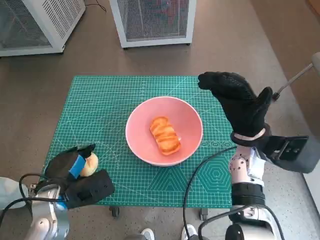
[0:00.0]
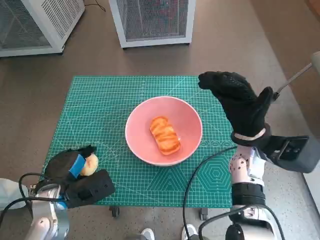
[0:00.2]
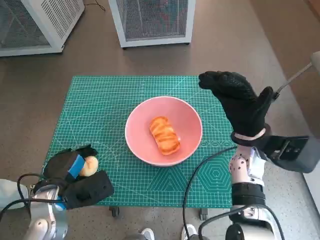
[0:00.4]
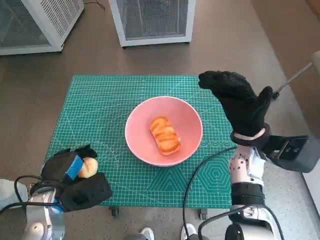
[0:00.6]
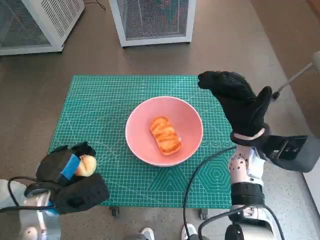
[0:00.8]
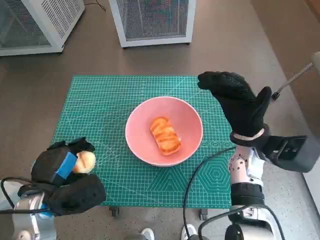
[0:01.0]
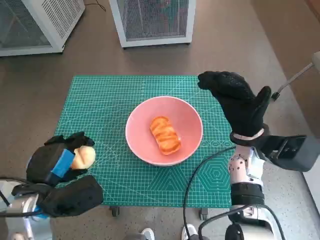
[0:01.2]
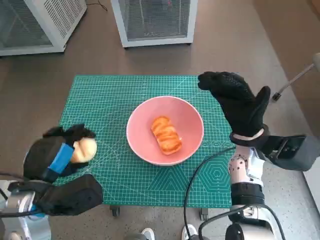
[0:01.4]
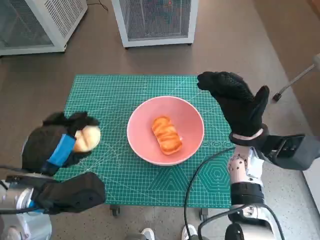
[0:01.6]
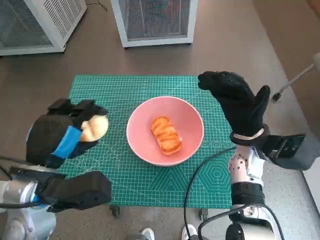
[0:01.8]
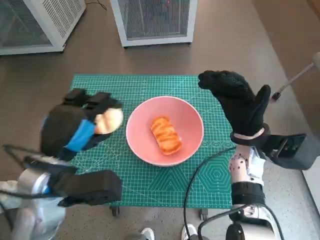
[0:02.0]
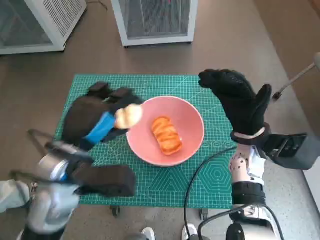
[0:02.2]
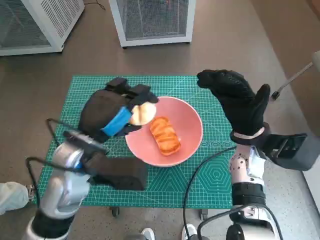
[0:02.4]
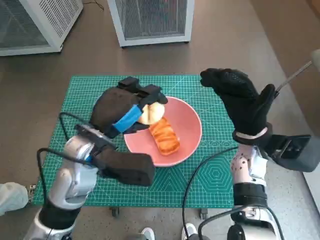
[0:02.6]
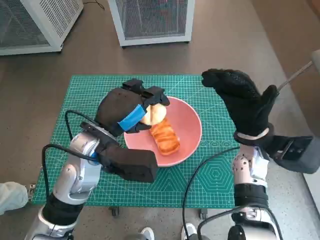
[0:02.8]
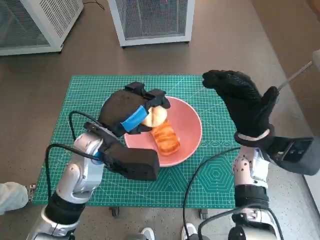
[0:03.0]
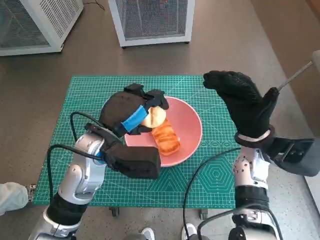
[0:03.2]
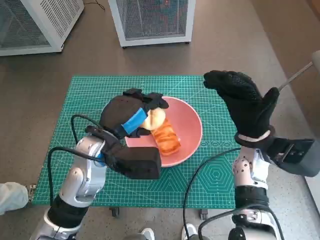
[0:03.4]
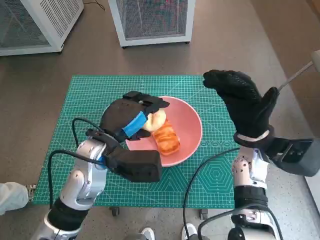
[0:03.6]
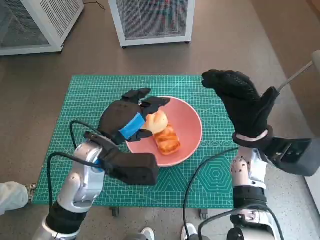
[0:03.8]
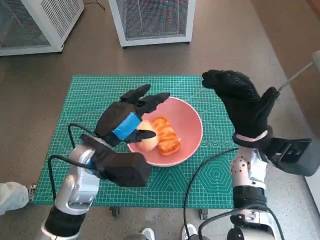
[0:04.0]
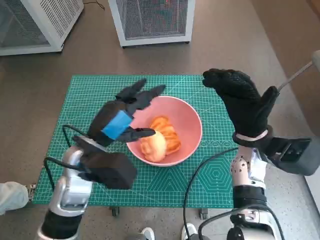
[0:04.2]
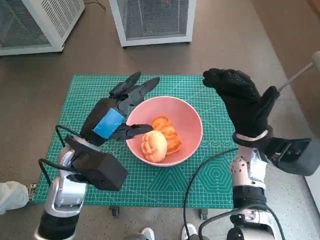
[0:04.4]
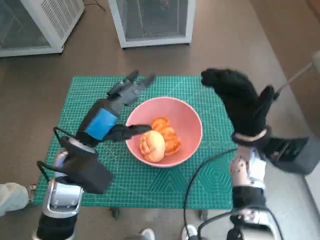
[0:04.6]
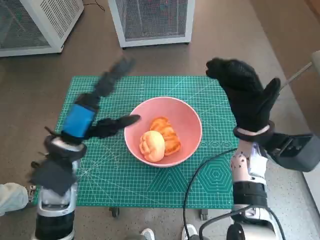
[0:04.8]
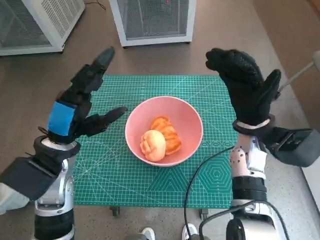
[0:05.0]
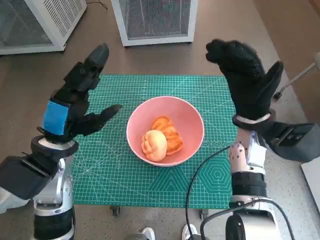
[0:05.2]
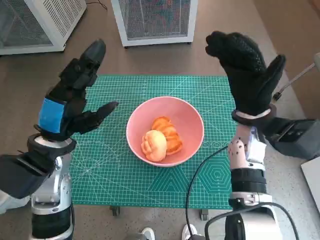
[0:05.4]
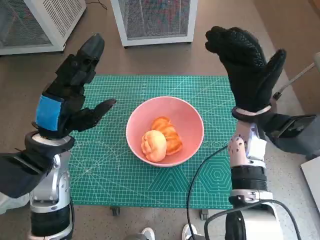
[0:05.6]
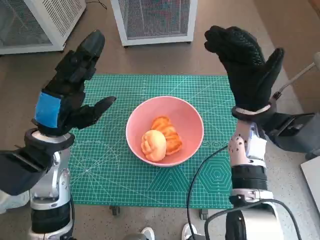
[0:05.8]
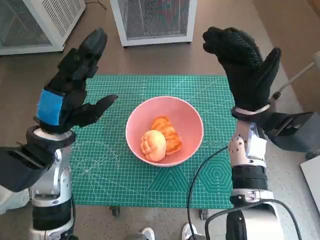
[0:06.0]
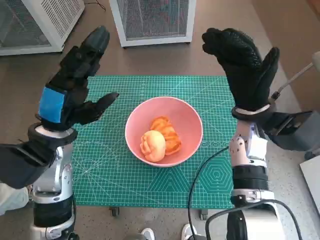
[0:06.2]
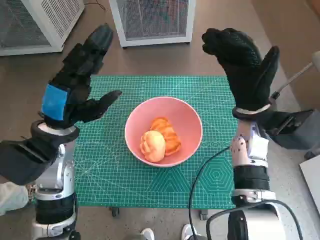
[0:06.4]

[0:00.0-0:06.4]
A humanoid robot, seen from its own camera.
Task of the whole recording: Push the bowl into the center of the table and put the bread into the bowl.
Step, 0:00.6 to 0:03.8: Place the round bread in pink bowl with left hand.
0:00.0 to 0:01.6: The left hand travels upward by roughly 10 cm.
0:01.6 to 0:03.2: The left hand is displaced forward and to the right by roughly 10 cm.
0:03.2 to 0:04.8: The left hand travels to the left by about 5 cm.

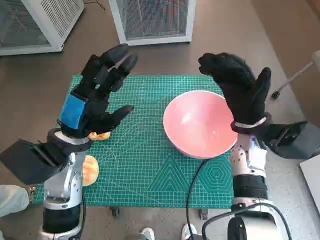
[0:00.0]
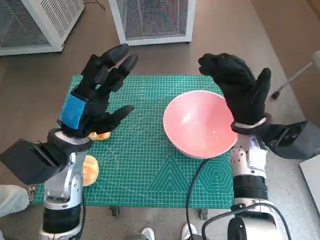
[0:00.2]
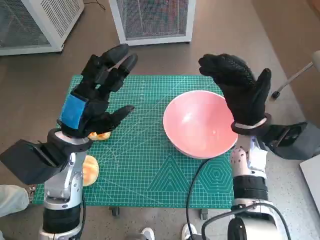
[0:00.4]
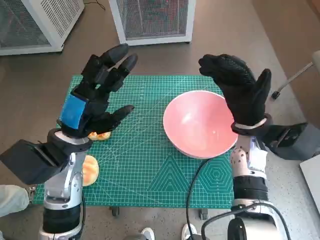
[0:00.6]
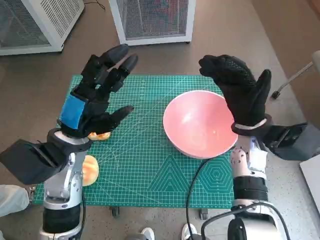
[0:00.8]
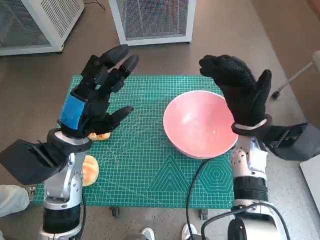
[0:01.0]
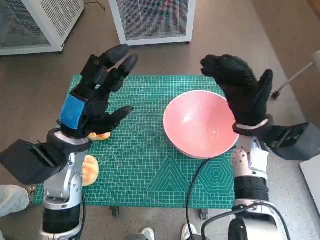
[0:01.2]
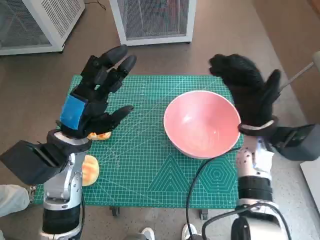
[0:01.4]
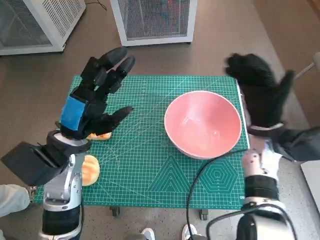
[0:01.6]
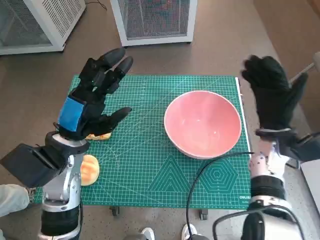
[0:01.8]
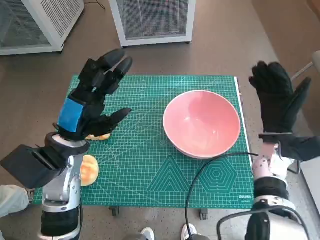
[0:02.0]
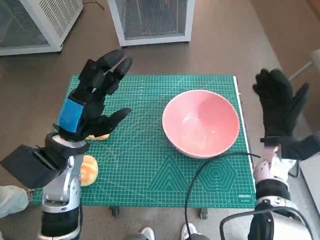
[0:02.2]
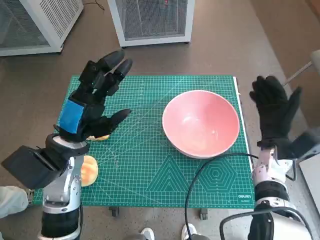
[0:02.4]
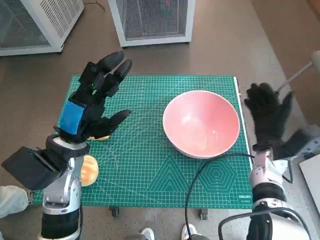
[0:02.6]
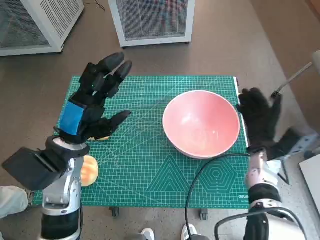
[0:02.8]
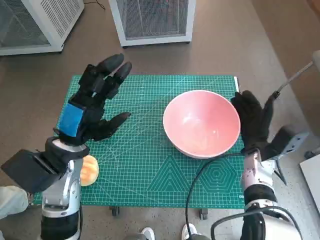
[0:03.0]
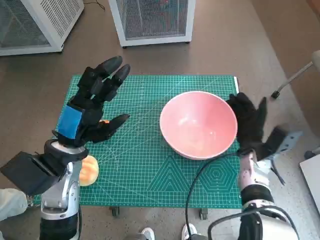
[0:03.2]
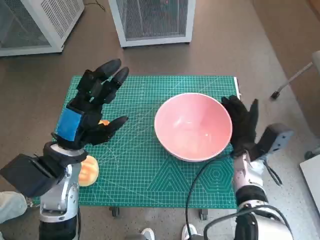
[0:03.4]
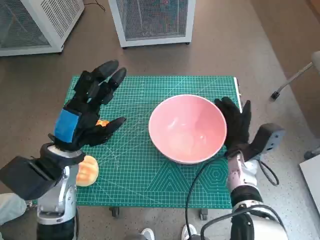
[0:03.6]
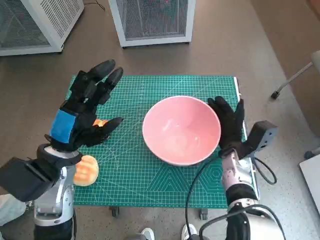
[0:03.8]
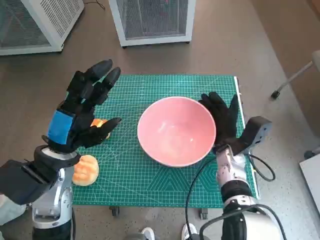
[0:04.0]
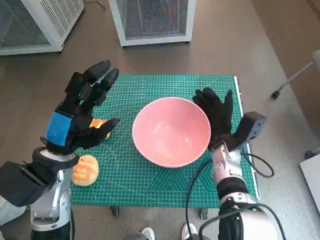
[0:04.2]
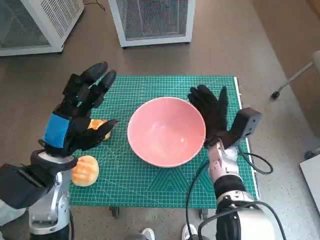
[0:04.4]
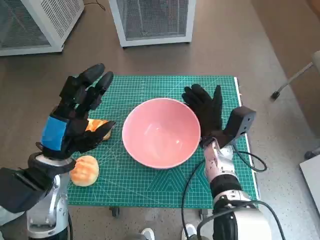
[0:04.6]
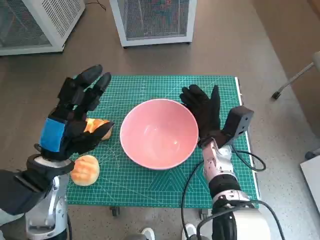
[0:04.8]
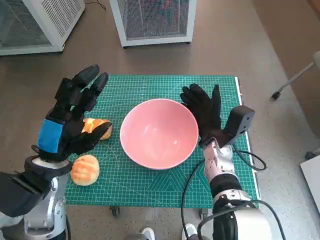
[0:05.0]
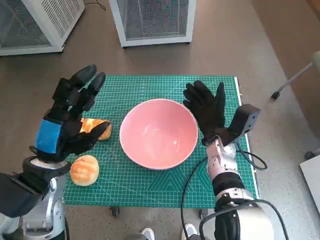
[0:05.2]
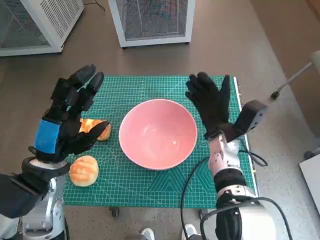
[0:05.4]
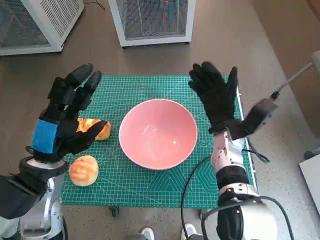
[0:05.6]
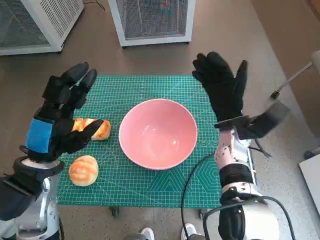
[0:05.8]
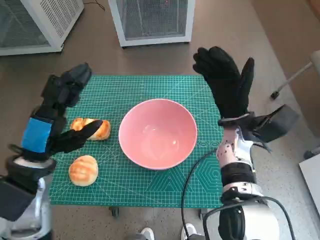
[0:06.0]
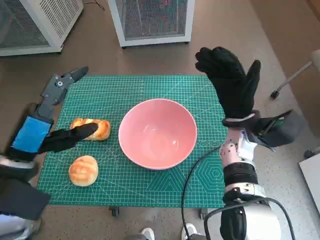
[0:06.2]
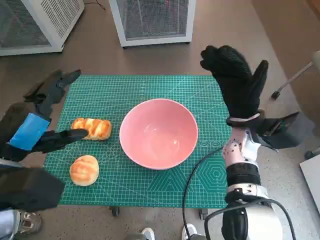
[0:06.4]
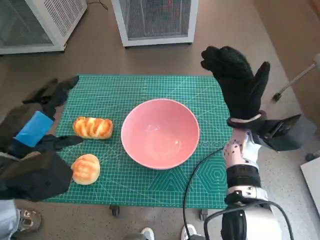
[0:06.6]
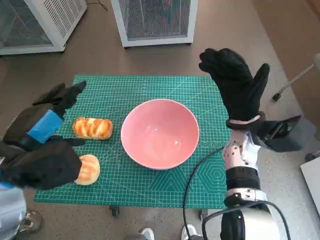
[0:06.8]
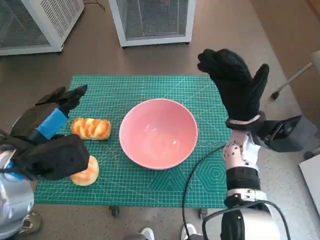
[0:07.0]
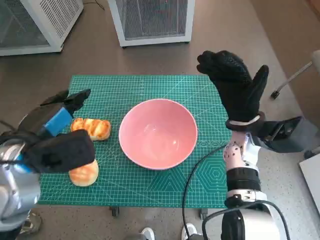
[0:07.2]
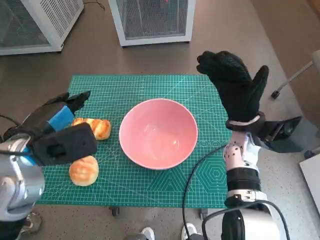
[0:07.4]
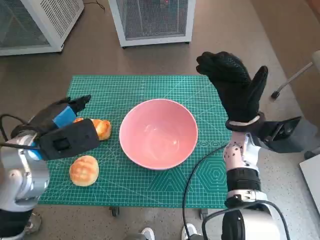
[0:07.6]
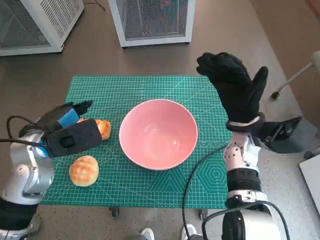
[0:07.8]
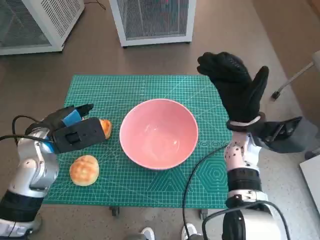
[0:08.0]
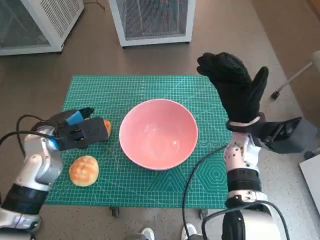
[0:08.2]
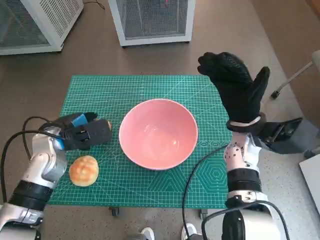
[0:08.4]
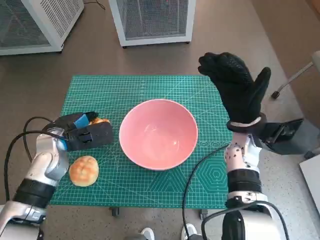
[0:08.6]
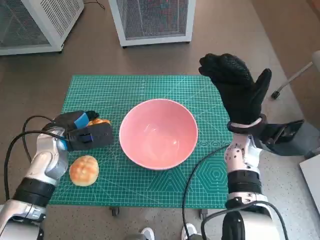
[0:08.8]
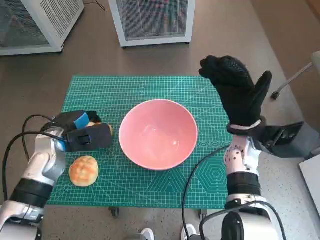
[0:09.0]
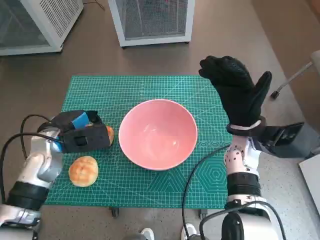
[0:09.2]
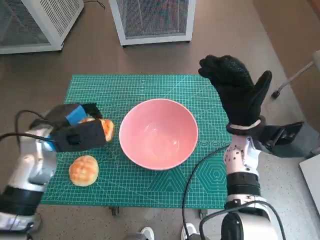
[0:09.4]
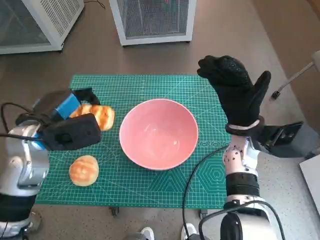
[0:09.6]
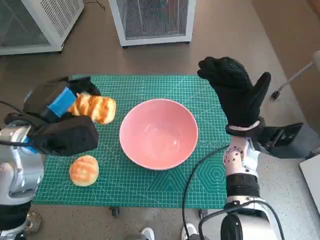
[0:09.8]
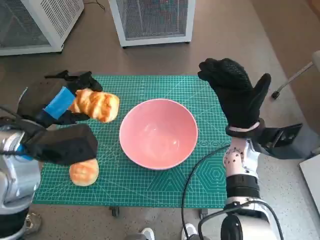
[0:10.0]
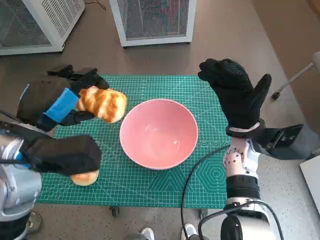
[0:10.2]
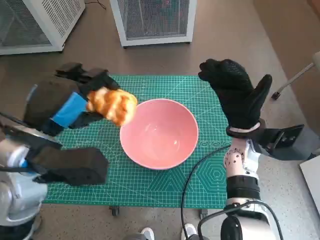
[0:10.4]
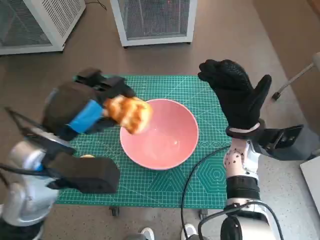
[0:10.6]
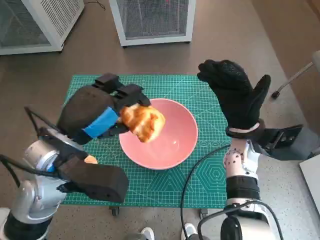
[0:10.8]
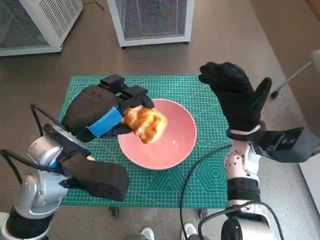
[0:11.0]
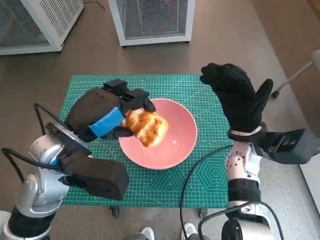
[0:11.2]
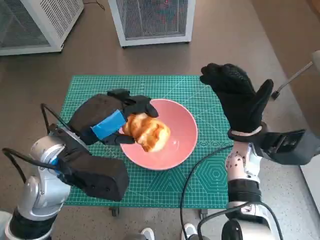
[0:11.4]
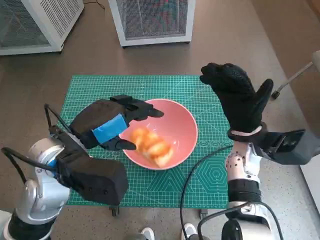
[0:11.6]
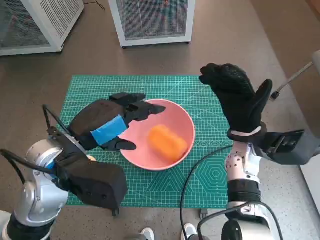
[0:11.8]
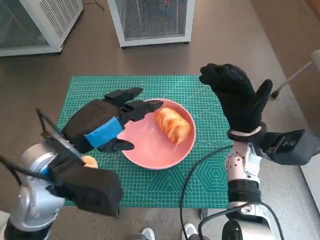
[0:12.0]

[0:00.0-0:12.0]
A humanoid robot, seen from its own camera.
Task of the whole recording: Push the bowl into the center of the table and put the bread into the bowl.
Step, 0:00.0 to 0:05.2: Move the pink bowl to the center of table with right hand.
Step, 0:05.4 to 0:08.8: Grasp the long bread with left hand.
Step, 0:09.0 to 0:11.6: Place the long bread in pink bowl with left hand.
0:01.6 to 0:03.0: The right hand goes about 10 cm downward.
0:03.0 to 0:04.4: The right hand goes approximately 10 cm to the left.
0:04.4 to 0:06.0: The right hand is displaced upward by about 5 cm.
0:07.6 to 0:09.0: The left hand shifts approximately 10 cm downward and forward.
0:09.0 to 0:10.4: The left hand shifts roughly 15 cm upward and backward.

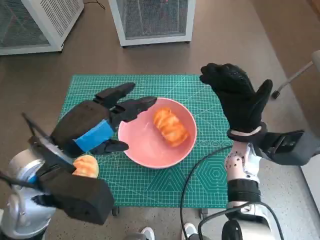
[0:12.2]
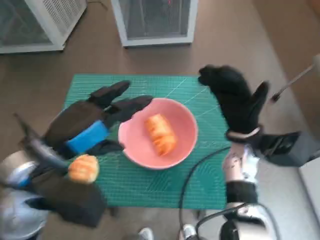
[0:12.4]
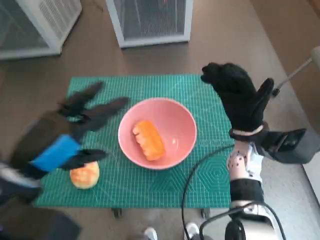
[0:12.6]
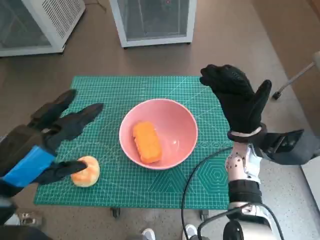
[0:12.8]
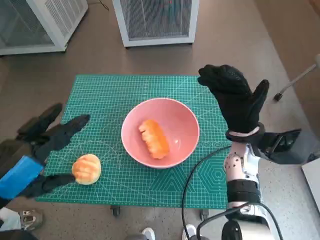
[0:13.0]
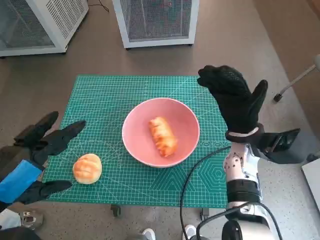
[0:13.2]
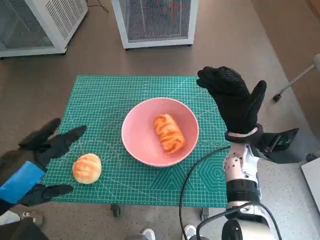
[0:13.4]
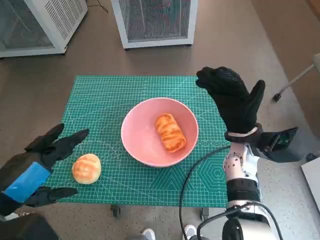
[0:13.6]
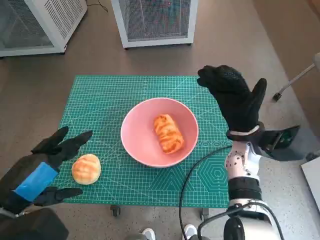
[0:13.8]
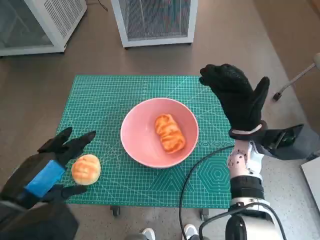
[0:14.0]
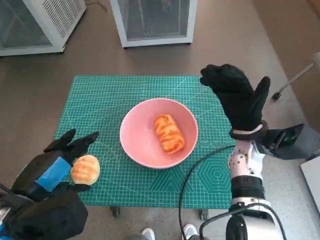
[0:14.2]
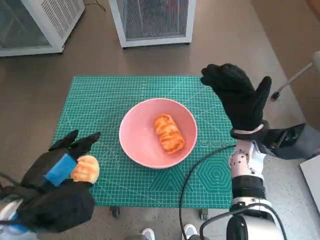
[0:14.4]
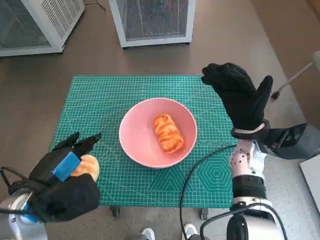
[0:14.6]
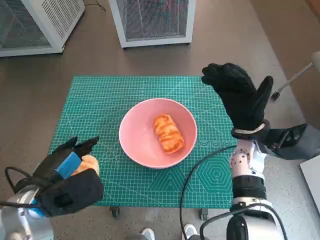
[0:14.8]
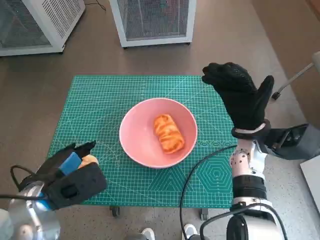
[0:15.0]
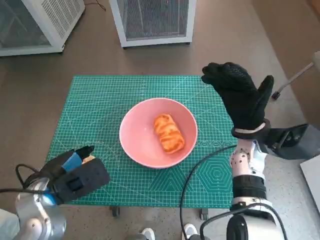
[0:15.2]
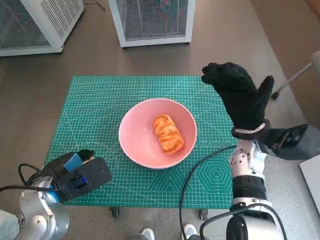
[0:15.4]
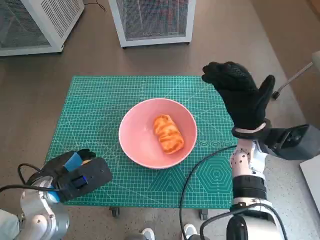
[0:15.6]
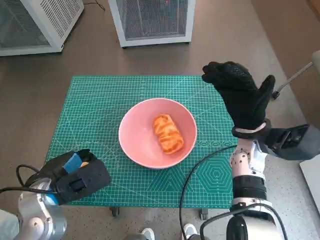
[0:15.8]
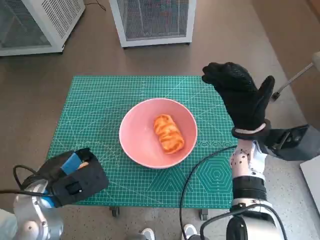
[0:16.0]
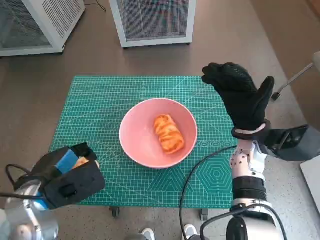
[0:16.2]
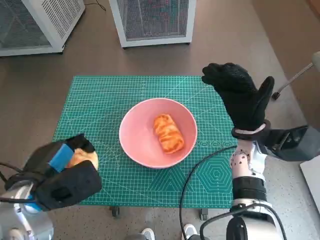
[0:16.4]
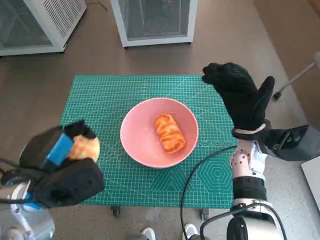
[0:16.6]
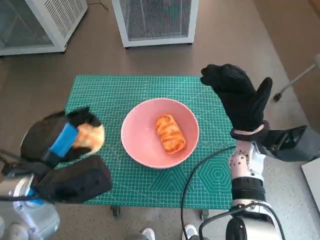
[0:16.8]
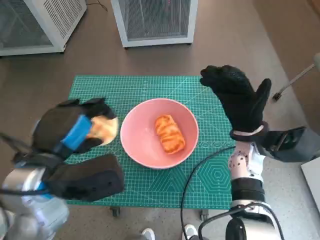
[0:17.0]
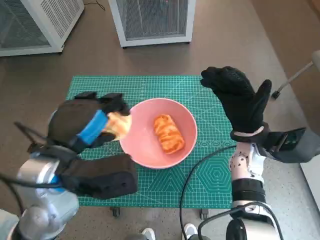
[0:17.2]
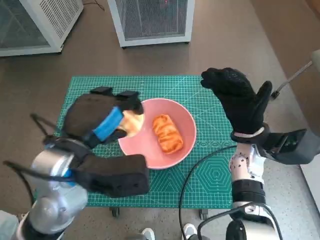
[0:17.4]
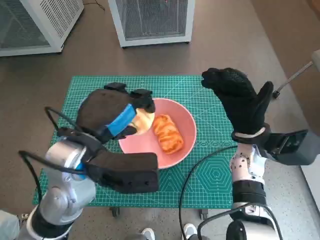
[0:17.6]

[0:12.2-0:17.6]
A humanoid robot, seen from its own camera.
Task of the whole recording: Push the bowl into the center of the table and put the bread into the bowl.
Step, 0:12.2 to 0:15.4: Grasp the round bread with left hand.
0:12.2 to 0:13.6: The left hand travels backward and to the left by about 10 cm.
0:13.6 to 0:15.0: The left hand moves downward and forward, approximately 10 cm.
0:15.0 to 0:16.2: The hands make only small movements.
0:16.2 to 0:17.6: The left hand shifts approximately 10 cm to the right and upward.
